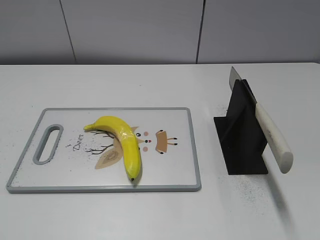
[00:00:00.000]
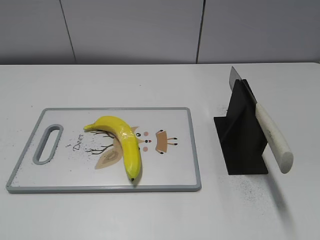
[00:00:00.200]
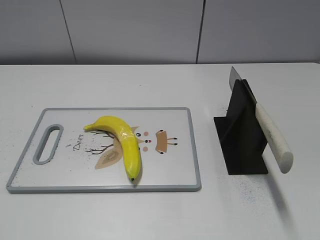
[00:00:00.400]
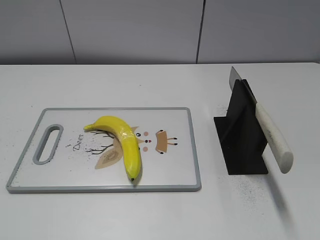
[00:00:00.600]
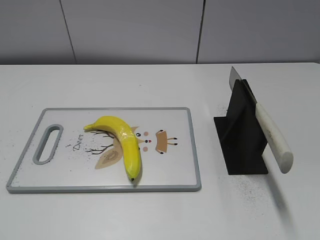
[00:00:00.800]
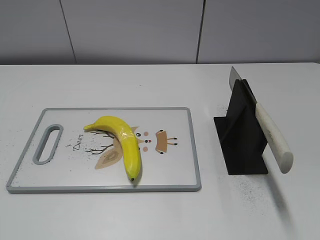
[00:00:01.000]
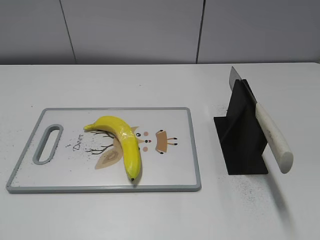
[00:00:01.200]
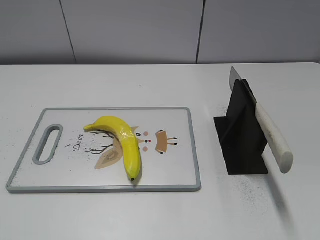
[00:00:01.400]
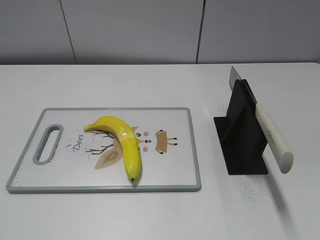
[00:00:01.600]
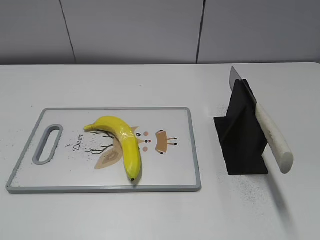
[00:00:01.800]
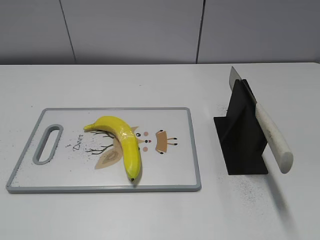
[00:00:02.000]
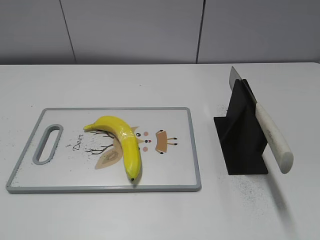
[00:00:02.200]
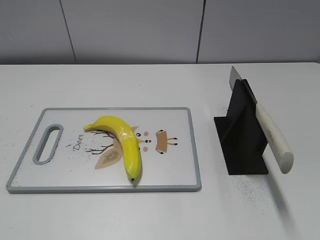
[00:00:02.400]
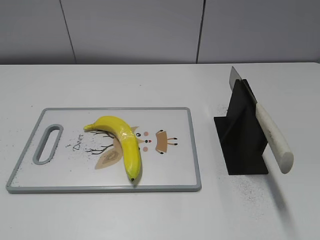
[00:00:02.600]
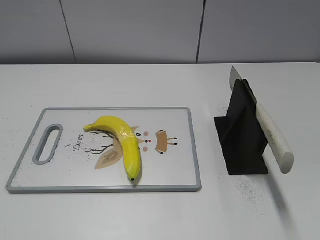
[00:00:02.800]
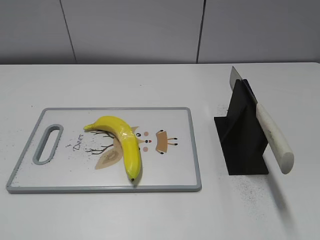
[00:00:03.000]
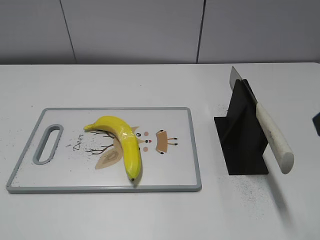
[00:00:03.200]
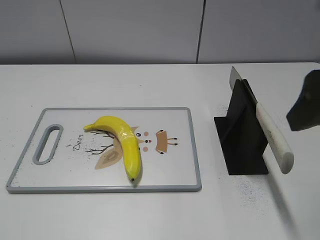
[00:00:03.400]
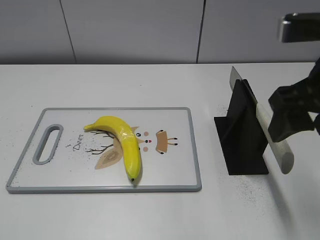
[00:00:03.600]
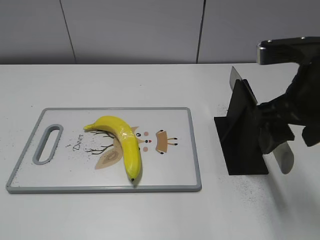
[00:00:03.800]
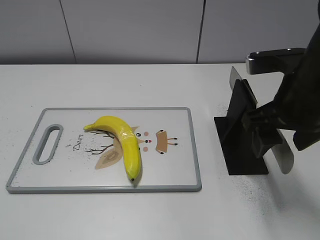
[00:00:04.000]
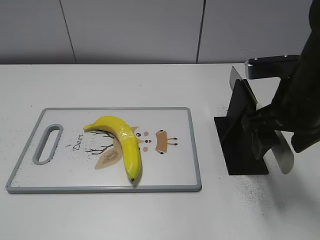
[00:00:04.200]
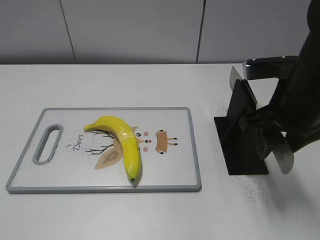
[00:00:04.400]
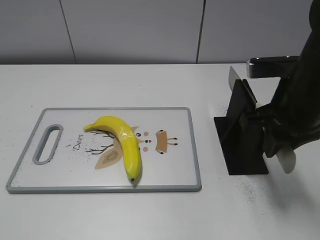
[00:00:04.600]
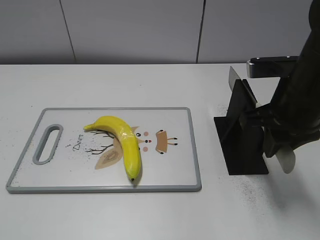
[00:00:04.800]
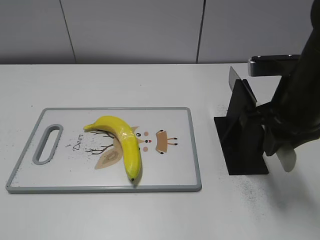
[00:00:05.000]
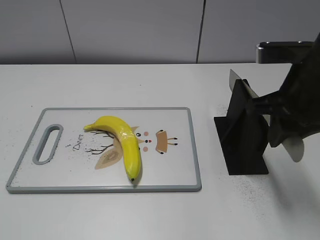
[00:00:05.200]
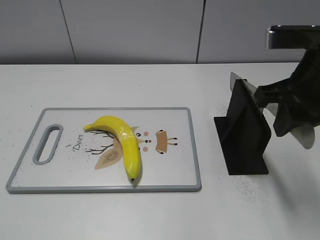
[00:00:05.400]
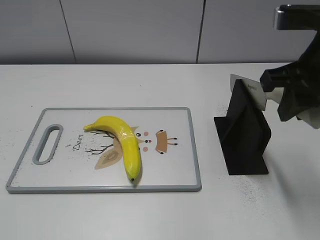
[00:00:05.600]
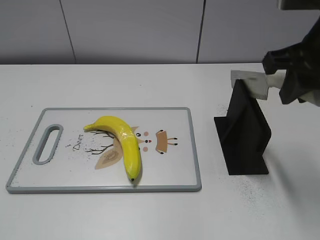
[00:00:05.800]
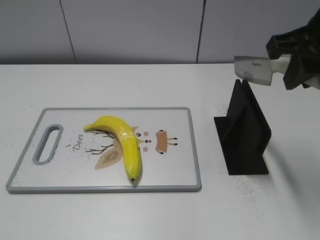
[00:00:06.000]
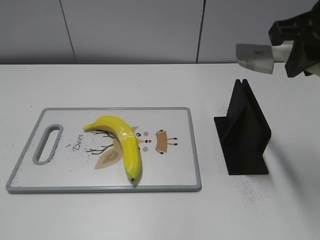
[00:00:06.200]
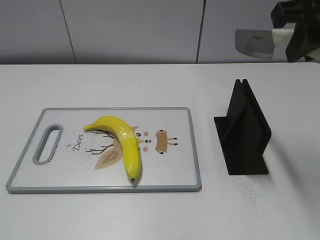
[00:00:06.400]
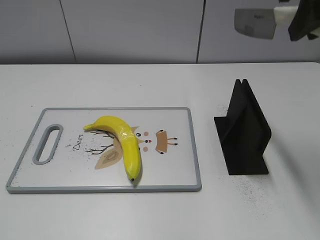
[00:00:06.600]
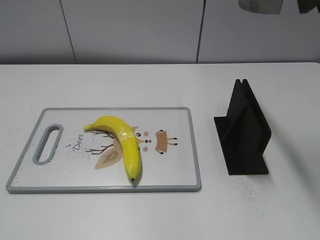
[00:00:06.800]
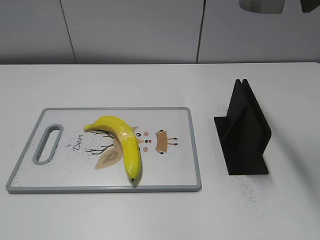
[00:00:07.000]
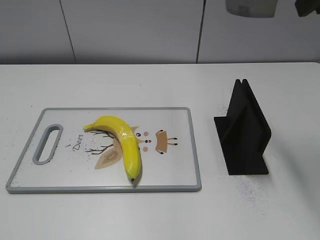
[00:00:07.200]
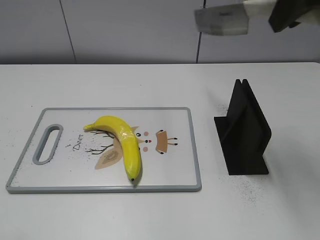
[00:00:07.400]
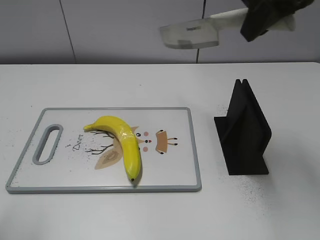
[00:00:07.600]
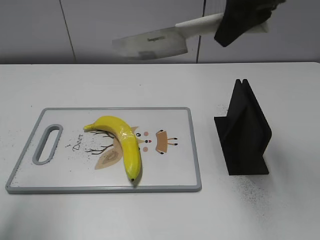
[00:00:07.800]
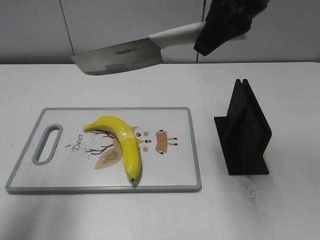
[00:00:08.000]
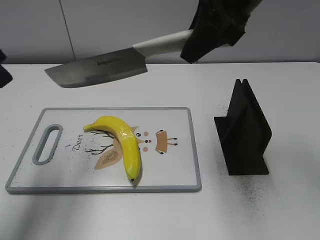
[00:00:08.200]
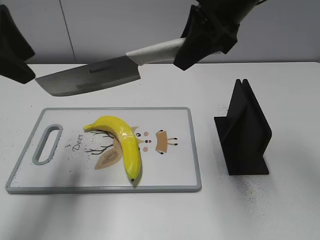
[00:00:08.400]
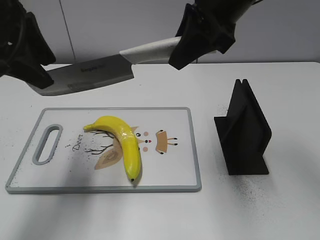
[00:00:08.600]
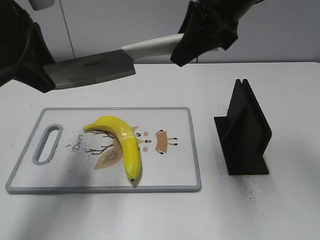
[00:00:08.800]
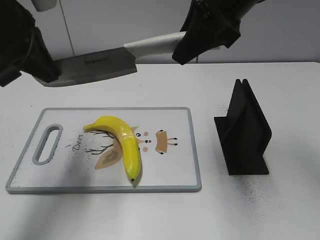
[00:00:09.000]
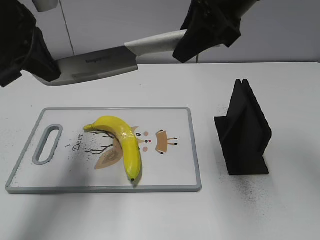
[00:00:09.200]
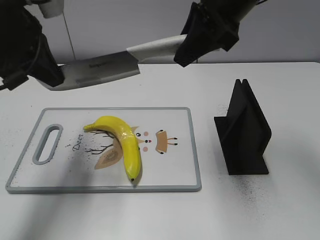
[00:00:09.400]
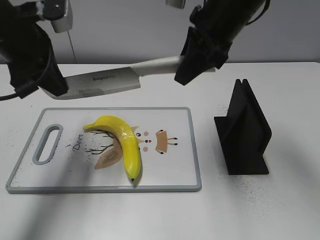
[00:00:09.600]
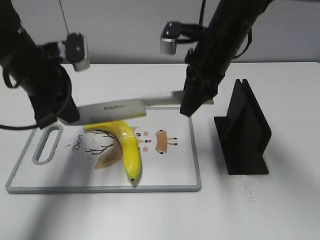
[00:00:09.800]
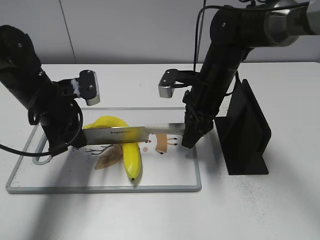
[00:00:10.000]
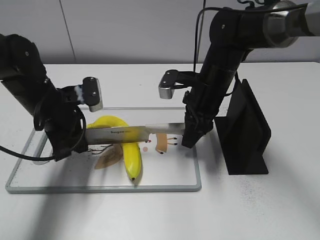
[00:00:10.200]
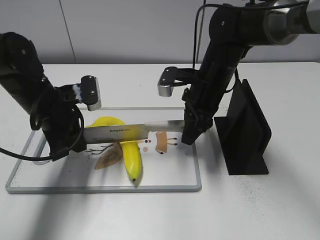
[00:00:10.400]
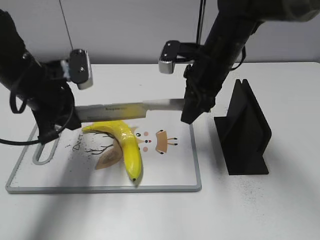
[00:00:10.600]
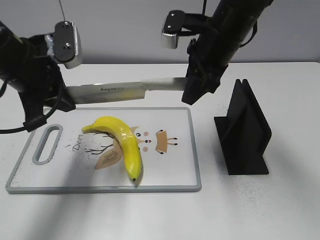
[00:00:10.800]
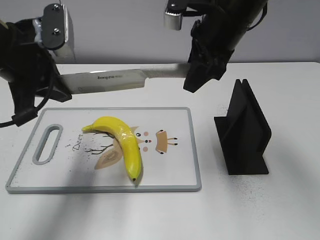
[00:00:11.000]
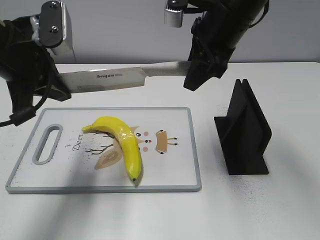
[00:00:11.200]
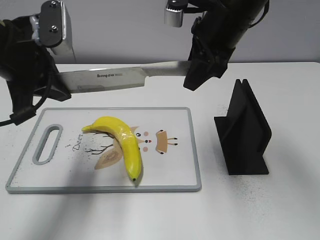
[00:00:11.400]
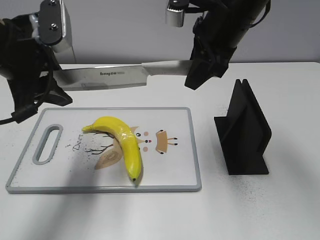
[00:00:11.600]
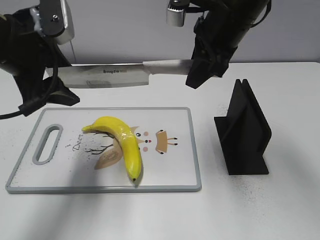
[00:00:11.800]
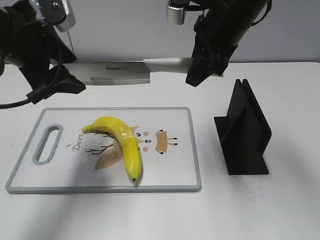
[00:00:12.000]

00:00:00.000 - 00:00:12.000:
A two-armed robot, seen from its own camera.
Task of the whole recording: cut plastic banana.
Step, 00:00:00.000 - 00:00:05.600: Grab the knife handle with your right hand.
Step, 00:00:06.000 - 00:00:11.400: Lift the knife with your right hand.
00:00:03.000 - 00:00:04.400: The right gripper shifts some 20 cm forward, downward and to the left.
00:00:04.400 - 00:00:06.000: The right gripper shifts approximately 10 cm upward, and closes its fingers.
00:00:06.000 - 00:00:07.600: The right gripper shifts roughly 5 cm forward.
00:00:07.600 - 00:00:09.000: The left gripper goes roughly 20 cm forward, and closes. The right gripper moves about 5 cm.
00:00:09.000 - 00:00:10.400: The grippers both shift downward by approximately 15 cm.
00:00:10.400 - 00:00:12.000: The two grippers go roughly 15 cm upward. The left gripper opens.

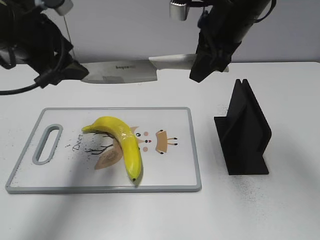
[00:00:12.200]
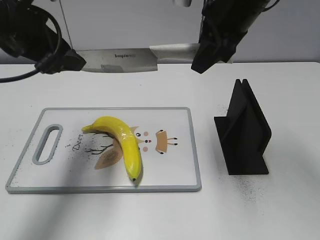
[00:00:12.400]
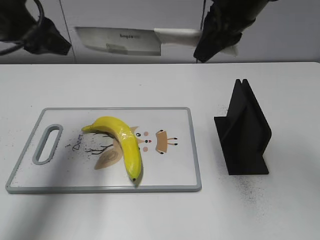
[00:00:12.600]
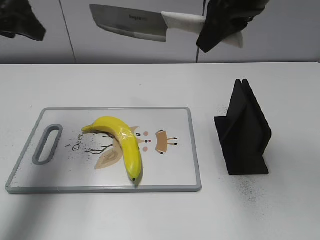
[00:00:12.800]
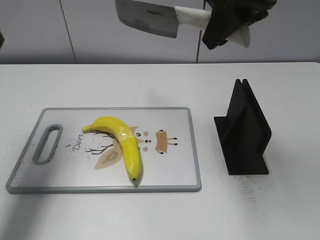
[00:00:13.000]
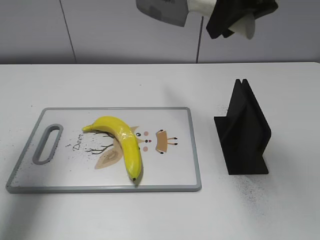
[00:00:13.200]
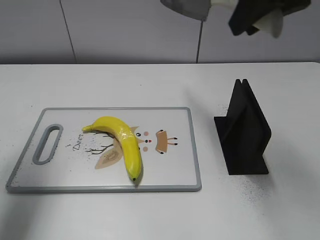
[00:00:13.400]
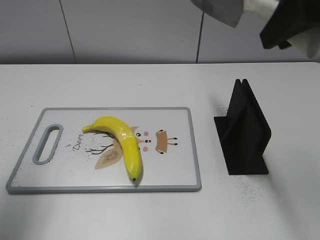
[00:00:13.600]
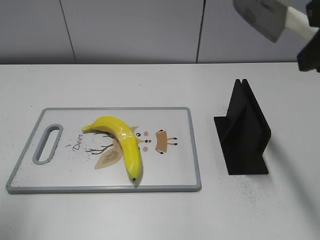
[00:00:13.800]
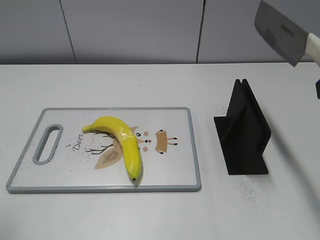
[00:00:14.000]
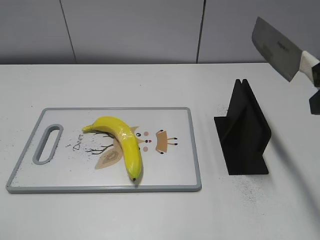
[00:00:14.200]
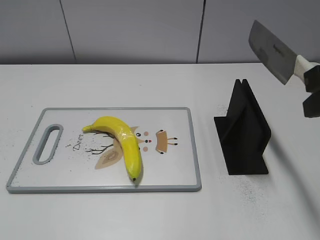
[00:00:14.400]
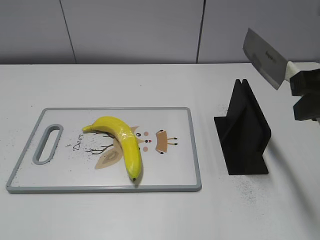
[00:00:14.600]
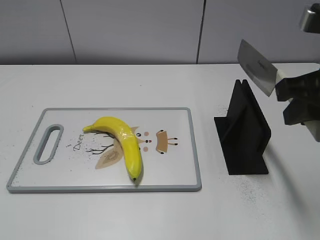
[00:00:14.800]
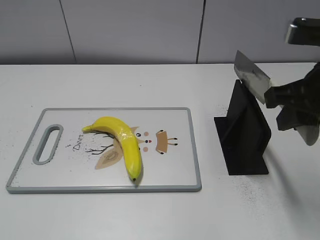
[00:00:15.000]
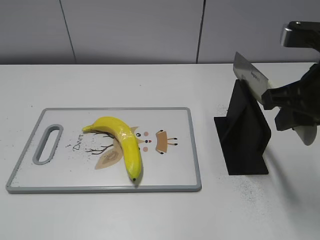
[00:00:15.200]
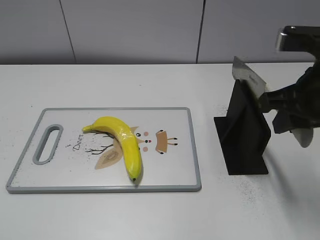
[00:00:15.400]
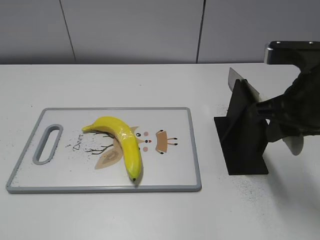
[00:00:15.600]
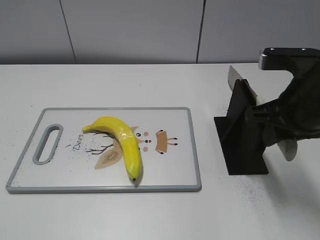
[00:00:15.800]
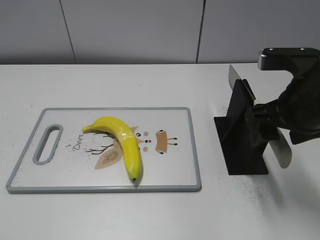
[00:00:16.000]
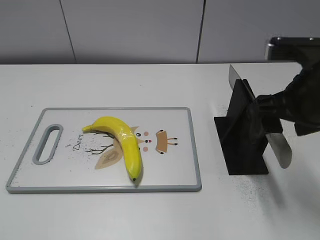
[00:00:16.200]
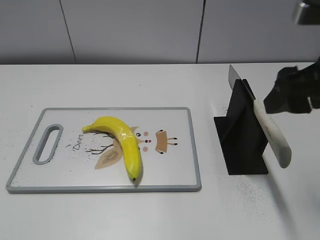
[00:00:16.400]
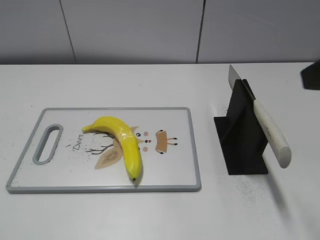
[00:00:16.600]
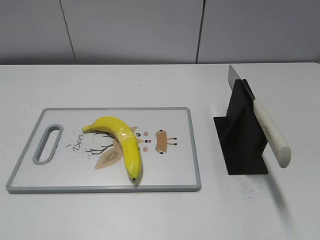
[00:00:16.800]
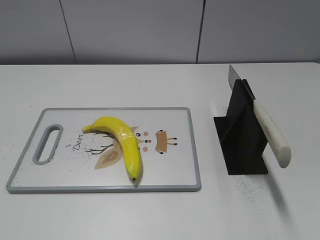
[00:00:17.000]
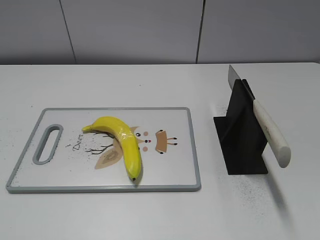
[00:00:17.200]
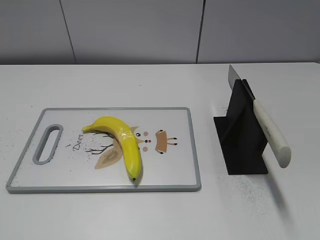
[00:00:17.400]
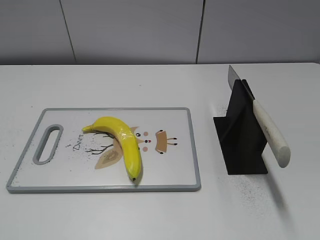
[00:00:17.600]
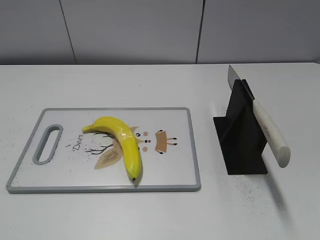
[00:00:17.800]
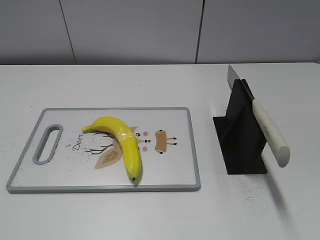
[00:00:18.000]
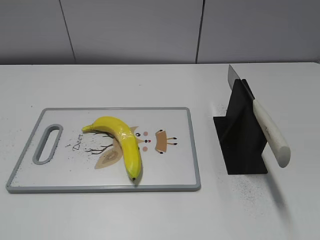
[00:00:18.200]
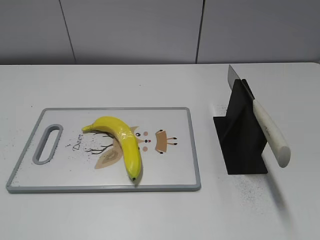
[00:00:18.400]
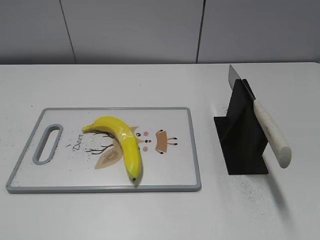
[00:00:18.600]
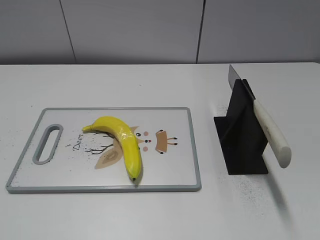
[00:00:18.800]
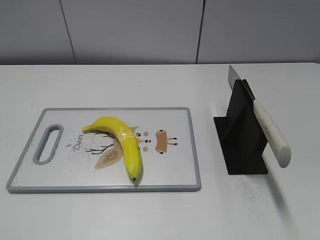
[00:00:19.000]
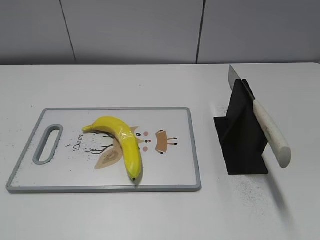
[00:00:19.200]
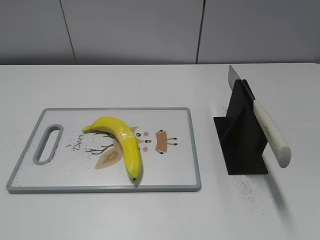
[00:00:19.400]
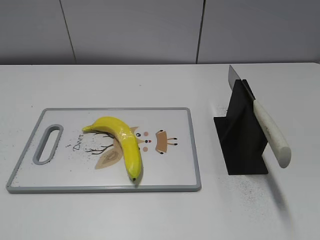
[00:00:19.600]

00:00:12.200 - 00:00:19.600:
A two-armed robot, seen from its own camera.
Task of the whole recording: cut plastic banana.
Step, 00:00:13.000 - 00:00:14.200: Lift the knife with your right hand.
Step, 00:00:14.600 - 00:00:19.600: Place the knife on the storage rack with your right hand.
00:00:12.200 - 00:00:13.600: The left gripper shifts some 15 cm to the left and backward, while the right gripper goes about 20 cm backward, upward and to the right.
00:00:13.600 - 00:00:15.200: The right gripper goes approximately 10 cm downward, while the left gripper goes some 20 cm backward.
00:00:15.200 - 00:00:16.600: The right gripper goes about 10 cm upward and backward, and opens.
00:00:16.600 - 00:00:18.200: The right gripper travels backward and to the right by some 20 cm.
